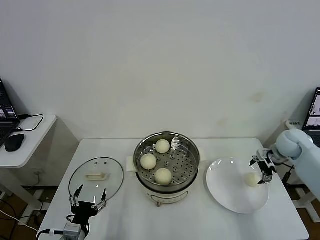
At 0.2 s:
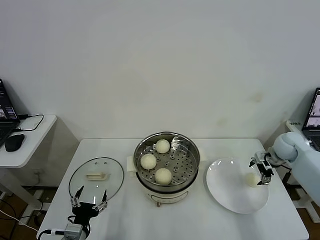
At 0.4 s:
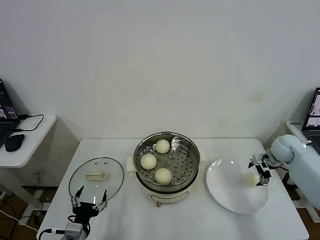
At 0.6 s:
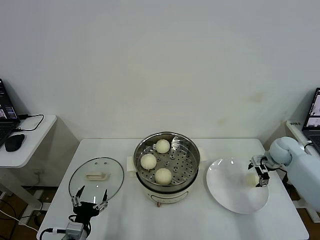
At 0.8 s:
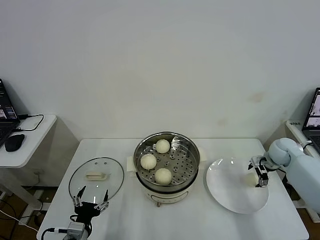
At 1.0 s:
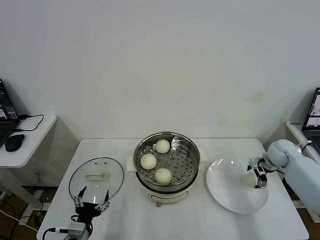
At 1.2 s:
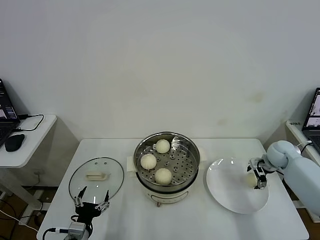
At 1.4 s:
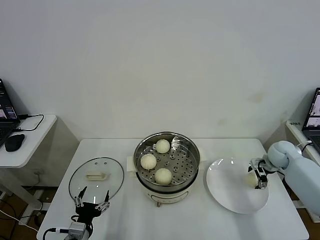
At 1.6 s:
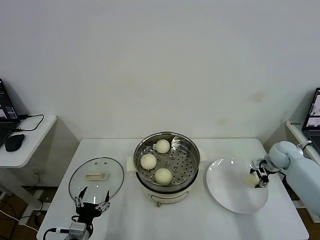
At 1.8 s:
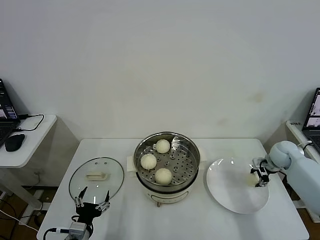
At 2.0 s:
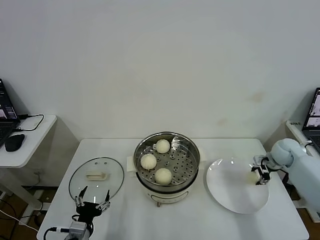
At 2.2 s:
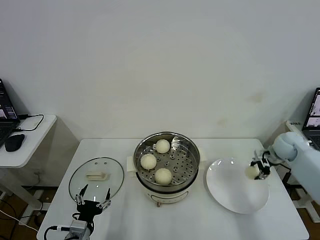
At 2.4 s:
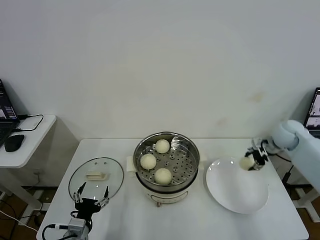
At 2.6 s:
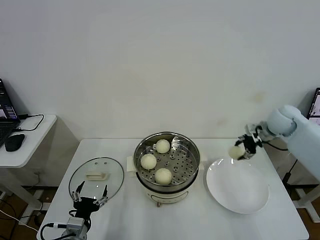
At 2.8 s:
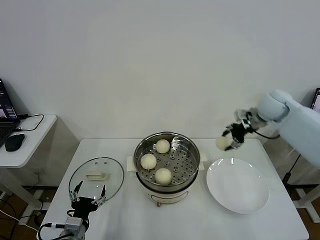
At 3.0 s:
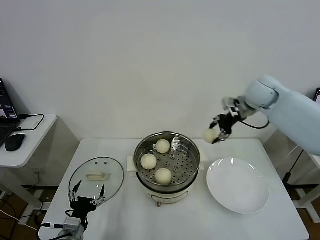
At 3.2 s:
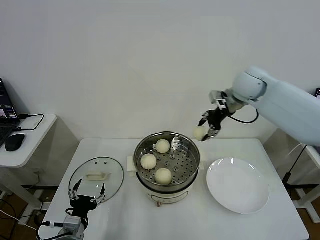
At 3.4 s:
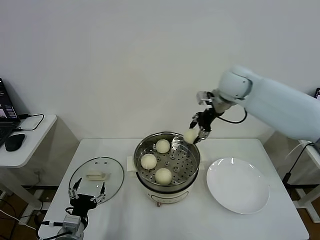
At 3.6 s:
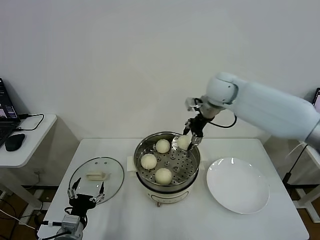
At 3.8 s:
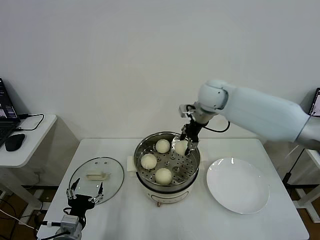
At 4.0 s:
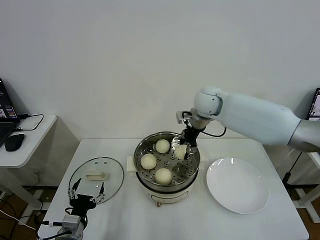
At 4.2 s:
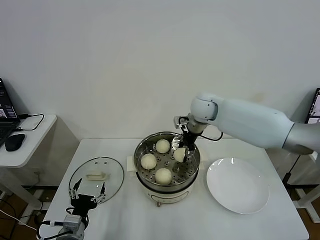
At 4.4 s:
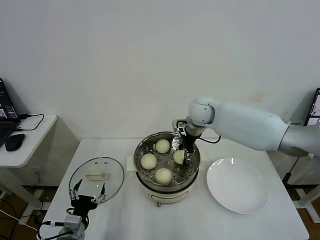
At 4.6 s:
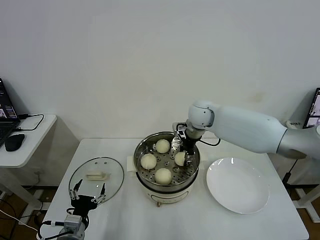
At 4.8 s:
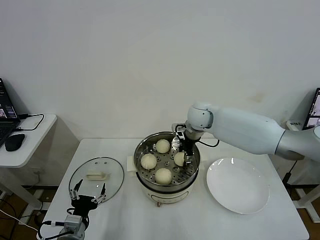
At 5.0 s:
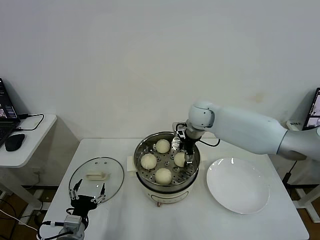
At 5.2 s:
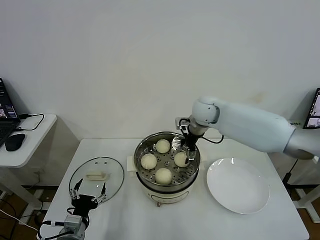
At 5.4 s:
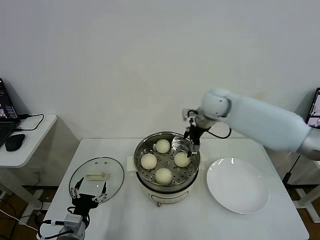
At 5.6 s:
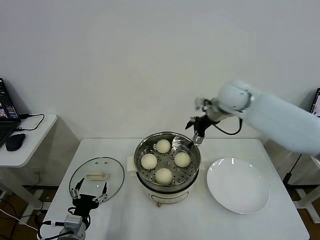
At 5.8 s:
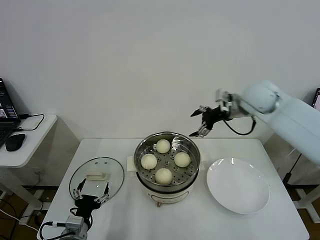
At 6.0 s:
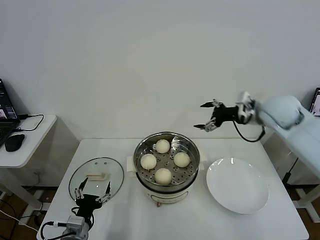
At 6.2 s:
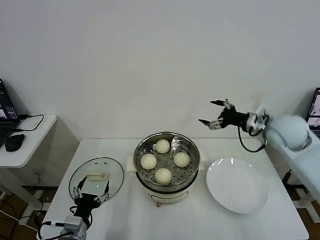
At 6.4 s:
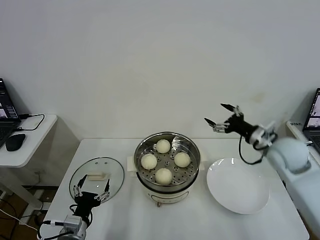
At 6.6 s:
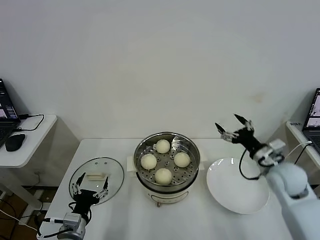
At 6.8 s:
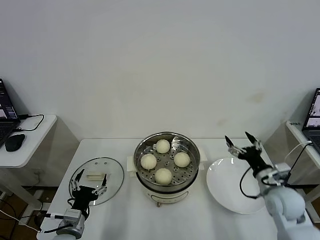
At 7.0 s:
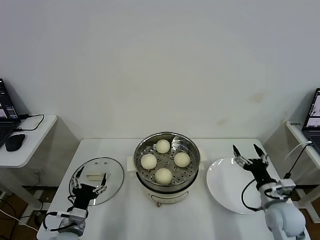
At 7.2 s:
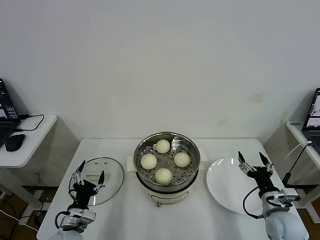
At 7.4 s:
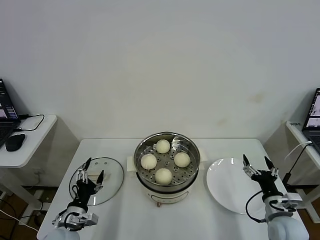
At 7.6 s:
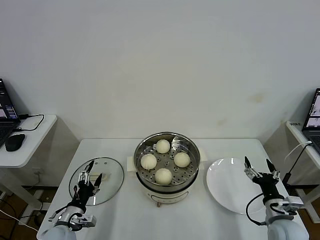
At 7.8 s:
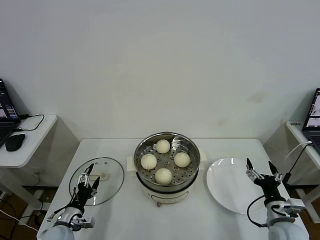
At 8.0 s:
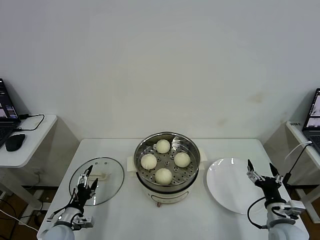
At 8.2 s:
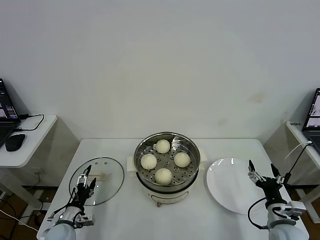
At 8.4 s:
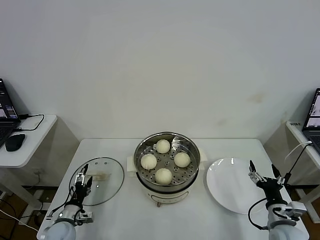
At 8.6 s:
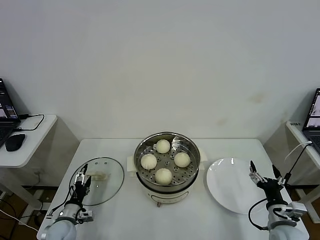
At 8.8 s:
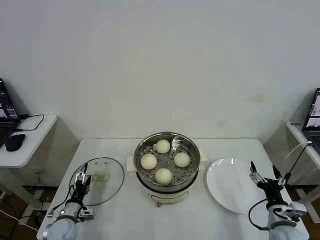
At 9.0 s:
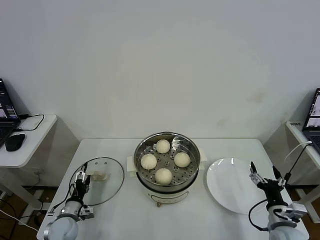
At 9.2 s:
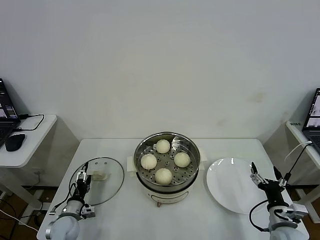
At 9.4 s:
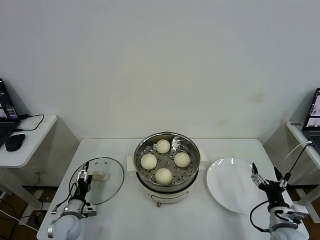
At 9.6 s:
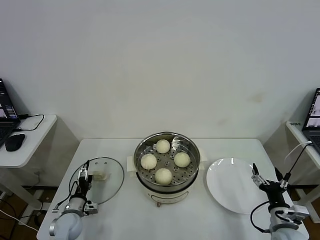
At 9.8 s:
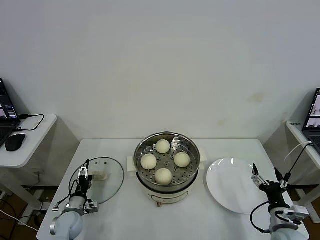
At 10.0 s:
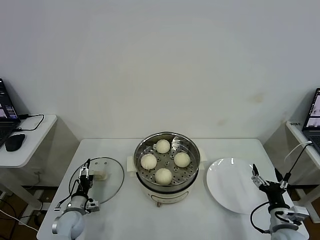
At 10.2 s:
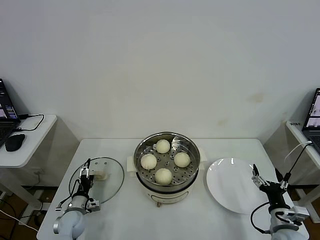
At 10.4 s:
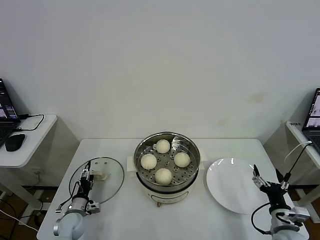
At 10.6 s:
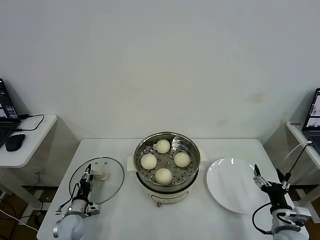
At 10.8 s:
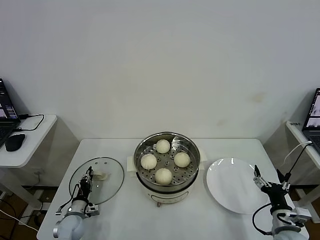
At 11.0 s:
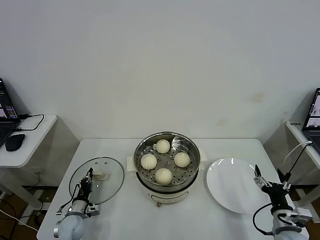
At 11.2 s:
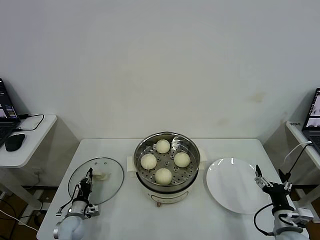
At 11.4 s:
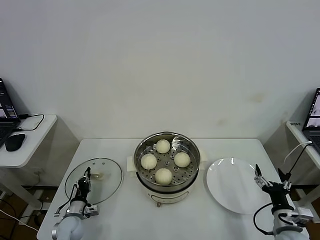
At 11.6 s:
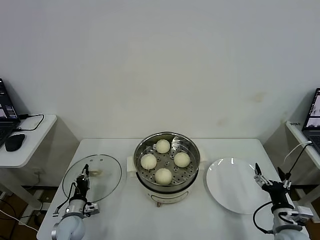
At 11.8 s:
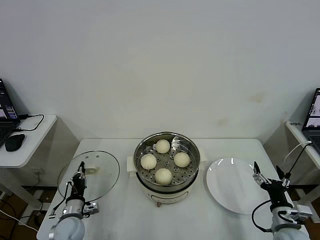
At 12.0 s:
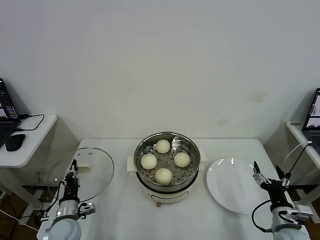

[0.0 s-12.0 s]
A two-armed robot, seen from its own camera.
Task of the whole recording: take steamed baozi put them in steamer then cover it.
Step, 2.0 to 5.2 s: Place the baozi on the steamer with right gripper.
Step, 5.4 to 11.4 s: Grasp the pot lid with left gripper.
0.0 to 1.6 s: The right gripper shifts about 5 cm downward, and closes.
1.6 to 3.0 s: The right gripper shifts about 30 cm upward and to the left.
3.0 to 4.4 s: The right gripper moves to the left and downward, about 20 cm.
4.4 to 6.0 s: The right gripper shifts some 20 cm to the right and backward, and opens its fingers.
6.0 to 7.6 s: The left gripper heads forward and to the left, covering roughly 10 cm. Meanwhile the right gripper heads downward and backward, covering approximately 35 cm.
7.6 to 9.0 s: The left gripper is displaced downward by roughly 5 cm.
9.0 to 10.4 s: There are only small adjustments of the grippers.
10.4 to 12.0 s: The left gripper travels upward by approximately 5 cm, and closes up.

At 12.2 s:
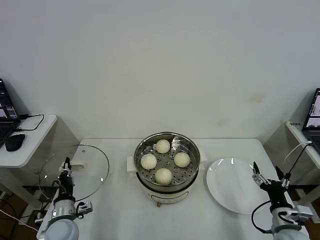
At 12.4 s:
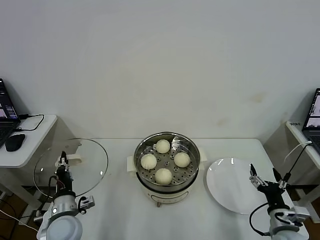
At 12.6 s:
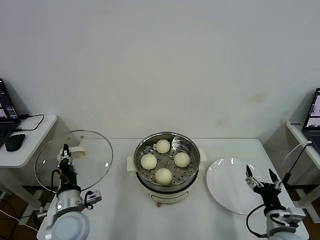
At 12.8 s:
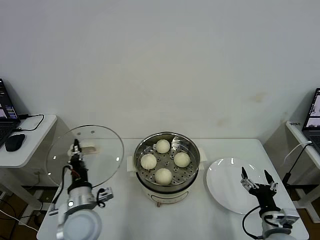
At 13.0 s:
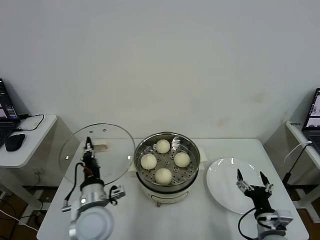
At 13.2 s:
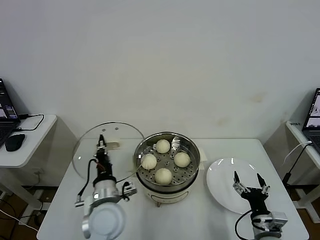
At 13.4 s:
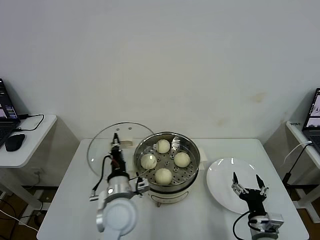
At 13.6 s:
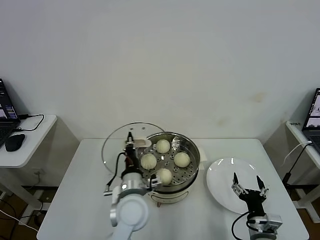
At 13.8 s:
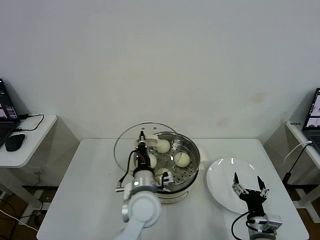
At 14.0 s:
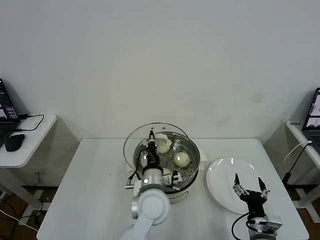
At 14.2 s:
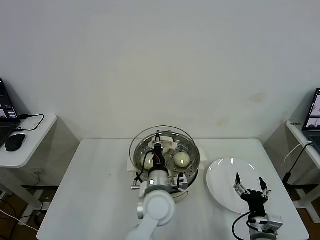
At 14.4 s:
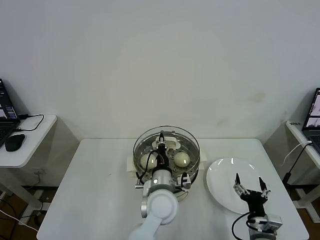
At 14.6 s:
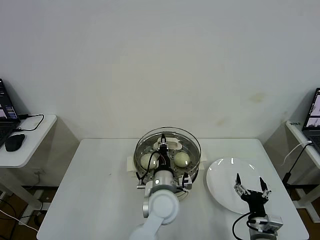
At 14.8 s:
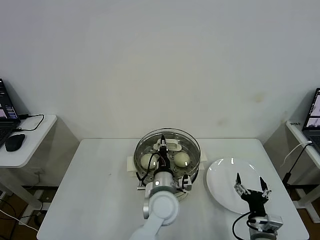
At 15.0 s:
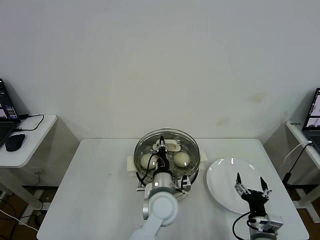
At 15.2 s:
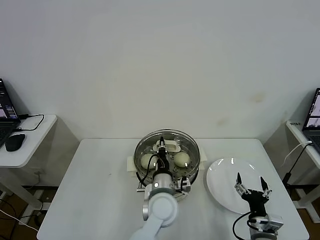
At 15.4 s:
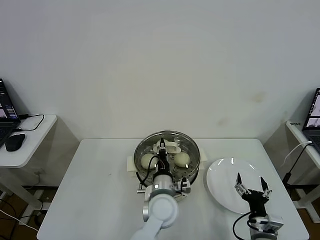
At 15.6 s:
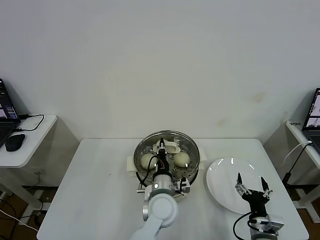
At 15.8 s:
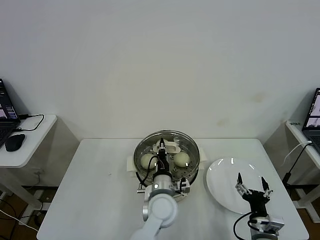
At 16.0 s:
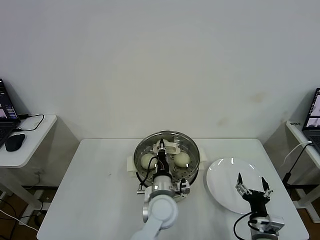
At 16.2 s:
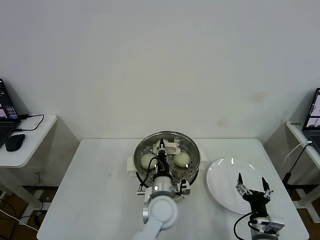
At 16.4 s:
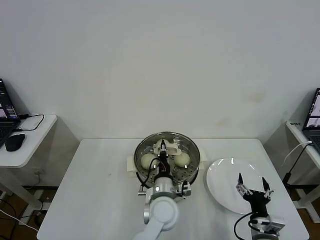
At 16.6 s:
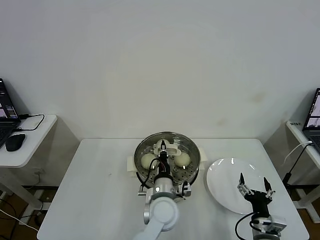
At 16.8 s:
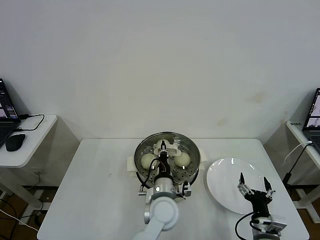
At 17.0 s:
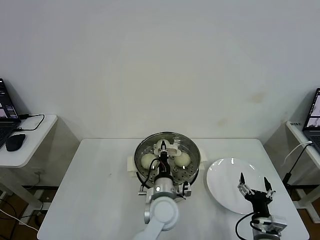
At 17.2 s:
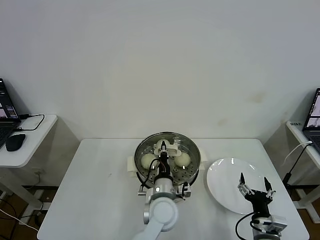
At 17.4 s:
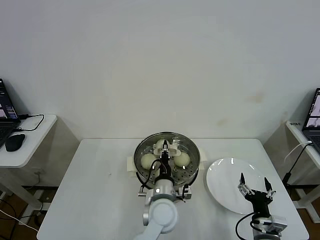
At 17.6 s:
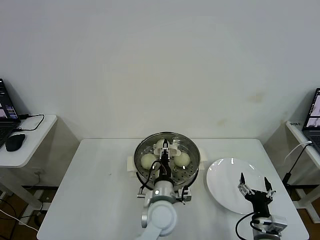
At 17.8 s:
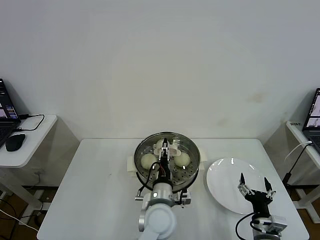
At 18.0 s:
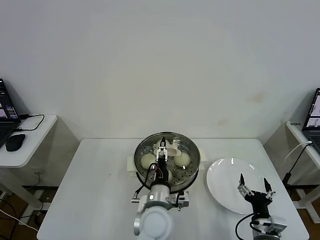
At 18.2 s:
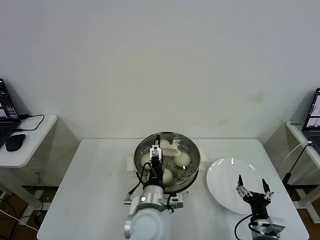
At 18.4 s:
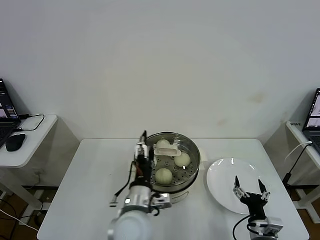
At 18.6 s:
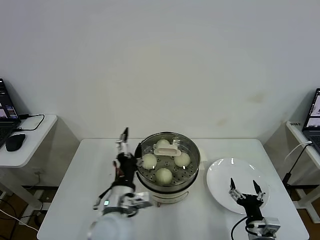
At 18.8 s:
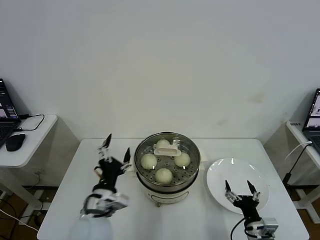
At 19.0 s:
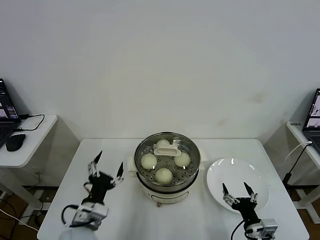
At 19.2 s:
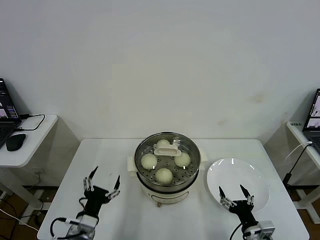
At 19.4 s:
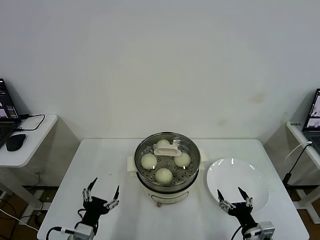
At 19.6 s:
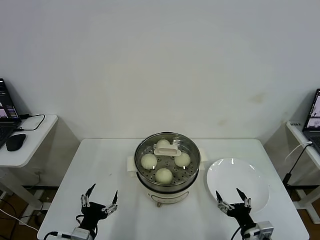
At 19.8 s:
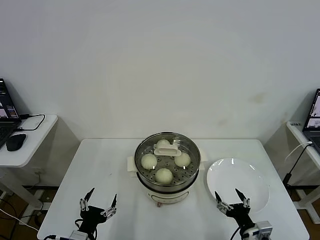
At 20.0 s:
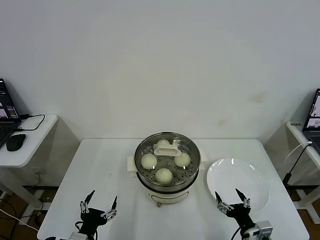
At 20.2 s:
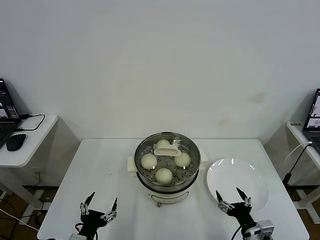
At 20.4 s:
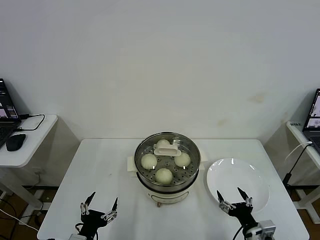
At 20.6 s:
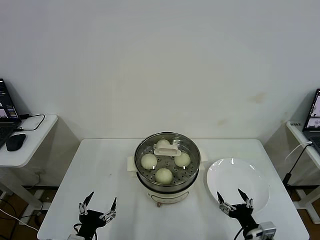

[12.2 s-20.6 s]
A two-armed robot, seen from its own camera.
Task of the whole recording: take steamed baozi put them in steamer then cover it.
Step, 12.2 to 17.8 s: Place the pot lid on the steamer with left gripper.
12.2 to 13.6 s: The right gripper moves to the left, approximately 5 cm, while the left gripper heads to the right and upward, covering approximately 25 cm.
13.6 to 15.0 s: The left gripper moves to the right, some 10 cm.
15.0 to 16.4 s: The grippers move only a little.
16.4 to 17.8 s: The left gripper opens.
17.8 to 19.2 s: The left gripper shifts approximately 25 cm to the left.
19.2 to 20.6 s: The left gripper is displaced backward by roughly 5 cm.

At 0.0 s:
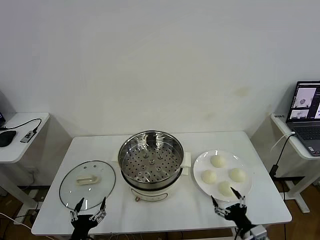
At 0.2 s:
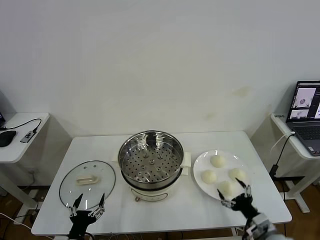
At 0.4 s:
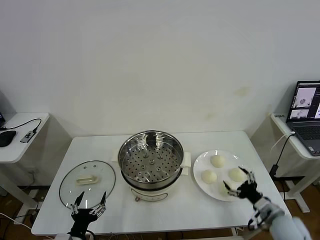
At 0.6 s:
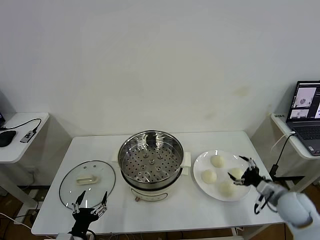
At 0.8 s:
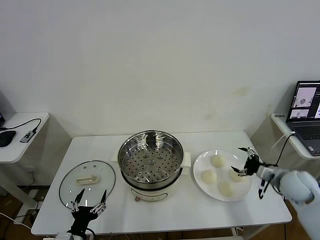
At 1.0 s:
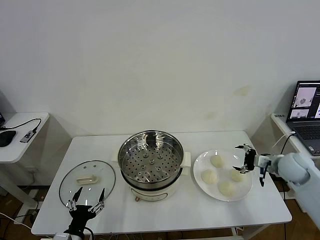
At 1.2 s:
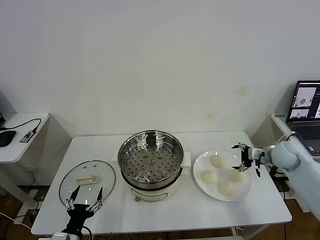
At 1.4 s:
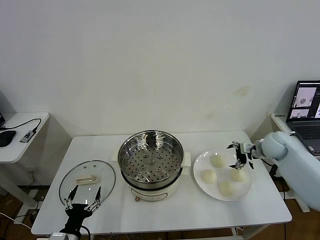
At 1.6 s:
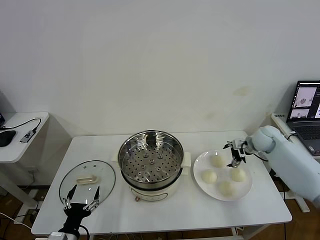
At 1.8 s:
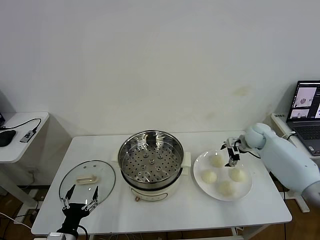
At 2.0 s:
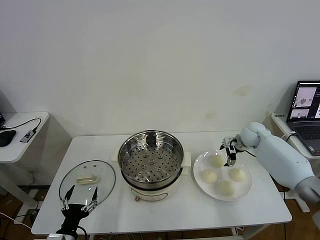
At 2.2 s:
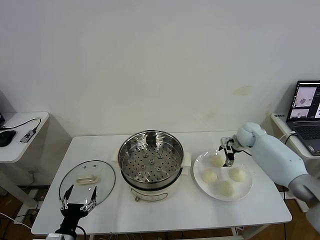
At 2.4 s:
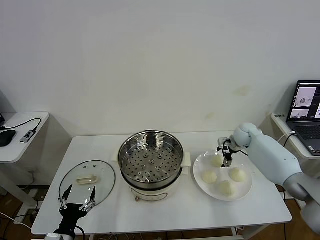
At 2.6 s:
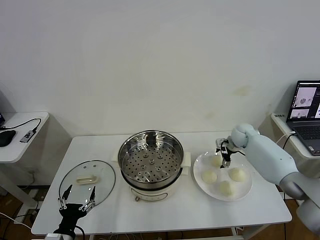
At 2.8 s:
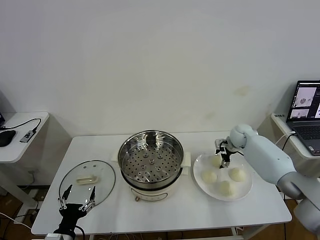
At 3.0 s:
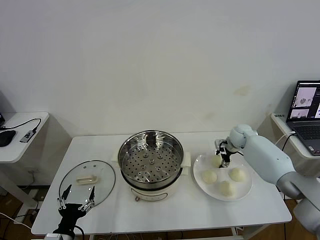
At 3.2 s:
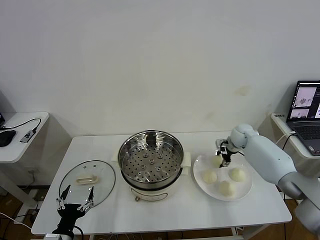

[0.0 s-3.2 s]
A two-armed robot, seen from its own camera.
Task of the whole recording: take steamed baozi put them in steamer then cover it.
1.6 to 3.2 s: The right gripper changes place by roughly 5 cm, and closes its fingers.
